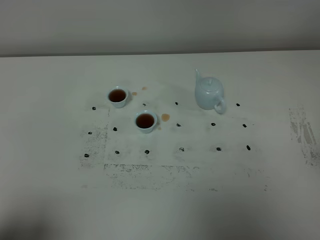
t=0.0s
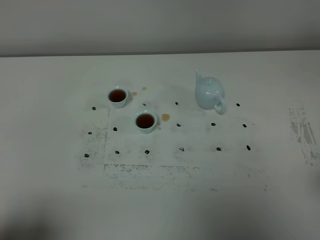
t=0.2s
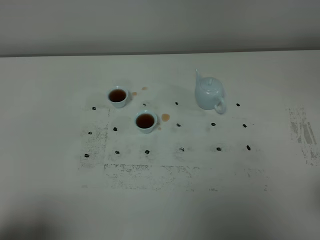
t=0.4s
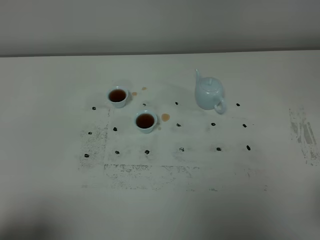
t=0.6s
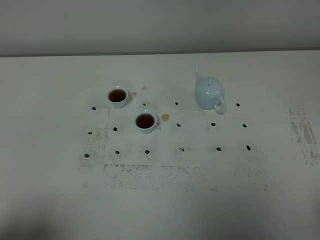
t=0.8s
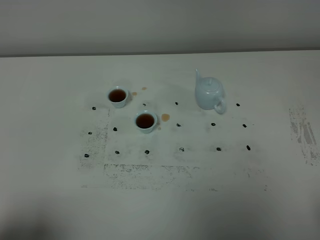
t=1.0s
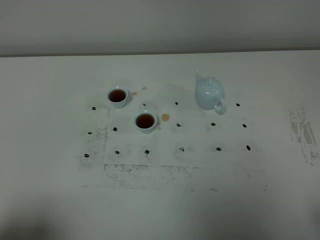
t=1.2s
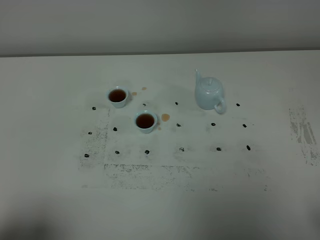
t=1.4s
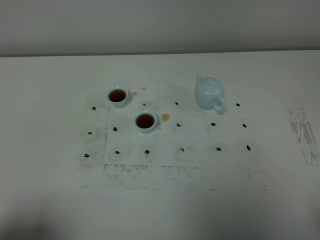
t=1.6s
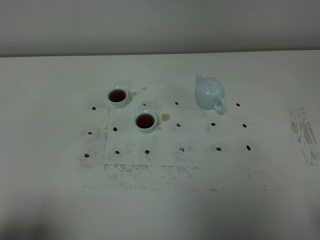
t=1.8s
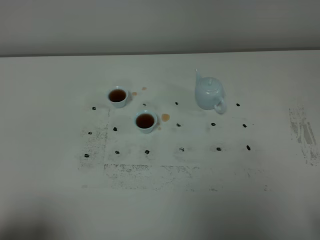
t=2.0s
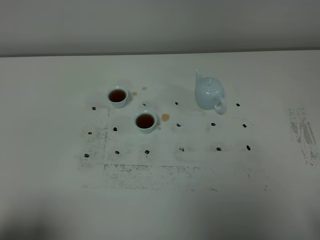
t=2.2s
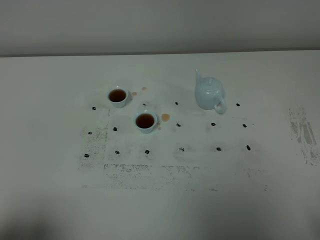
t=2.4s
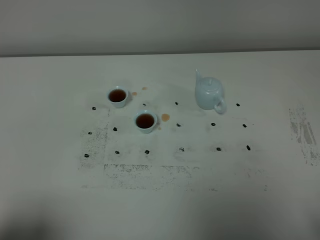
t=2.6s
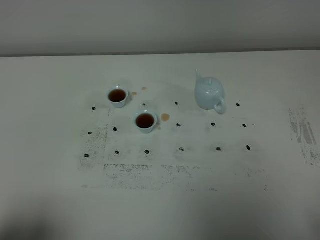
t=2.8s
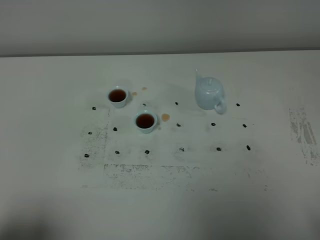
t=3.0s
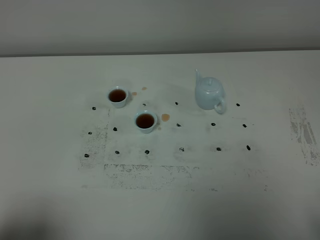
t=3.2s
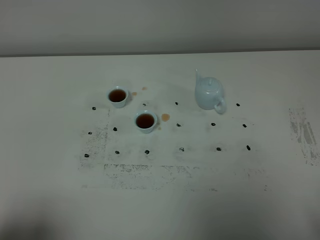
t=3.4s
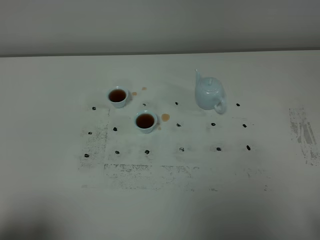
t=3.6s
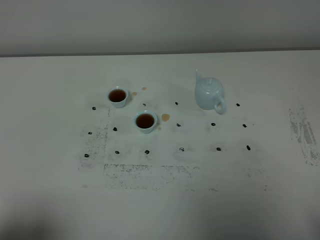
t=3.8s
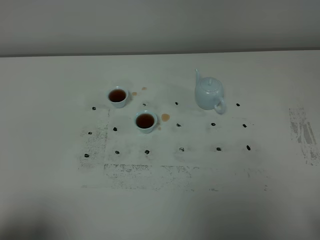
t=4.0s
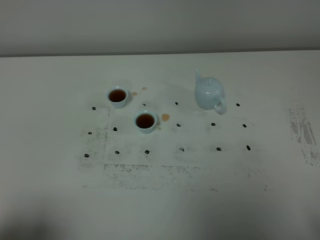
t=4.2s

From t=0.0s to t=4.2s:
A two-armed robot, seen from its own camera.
Task of the whole recording: grasp the blue porcelain teapot and pour the tea into the two blue porcelain teacups one by one, put the blue porcelain teapot back in its original place.
From t=2.8s to t=4.2s: The two grippers keep their place.

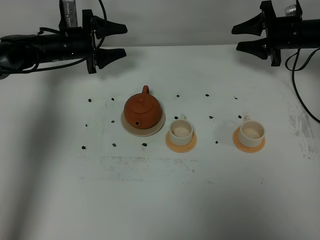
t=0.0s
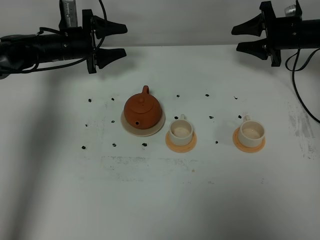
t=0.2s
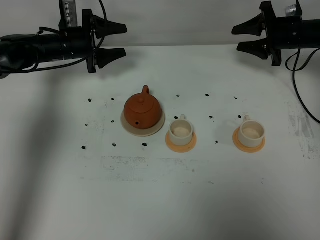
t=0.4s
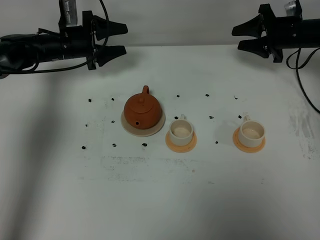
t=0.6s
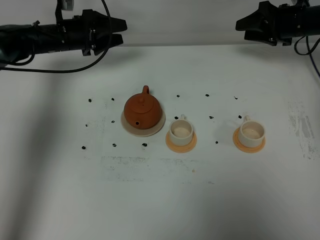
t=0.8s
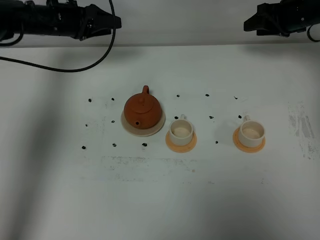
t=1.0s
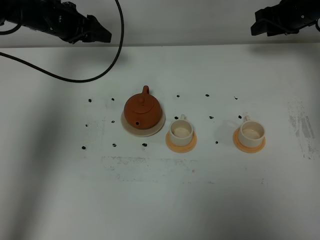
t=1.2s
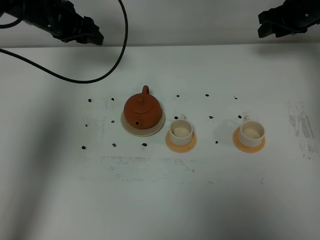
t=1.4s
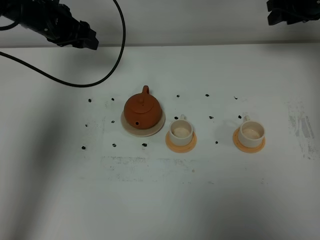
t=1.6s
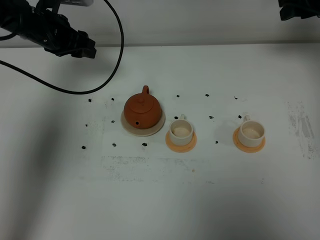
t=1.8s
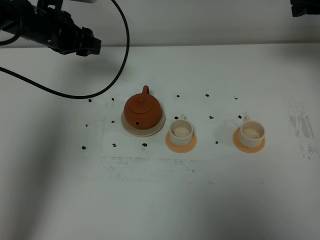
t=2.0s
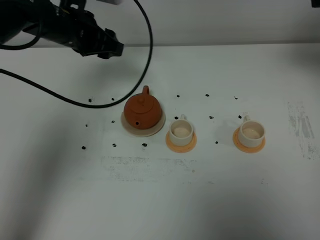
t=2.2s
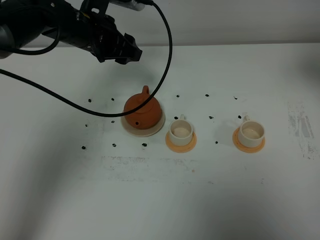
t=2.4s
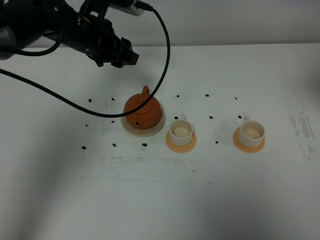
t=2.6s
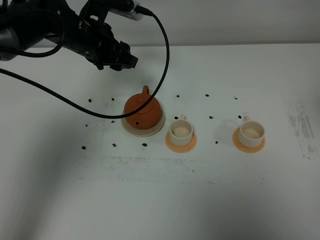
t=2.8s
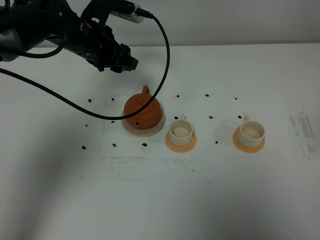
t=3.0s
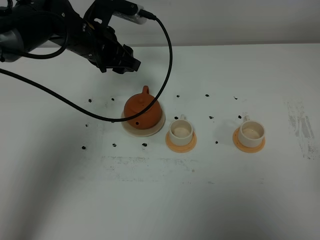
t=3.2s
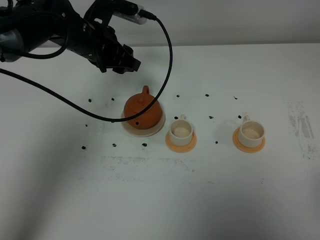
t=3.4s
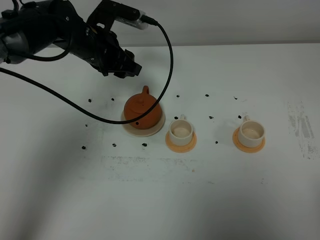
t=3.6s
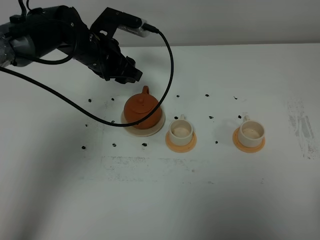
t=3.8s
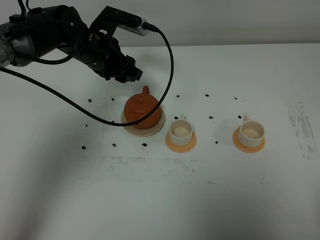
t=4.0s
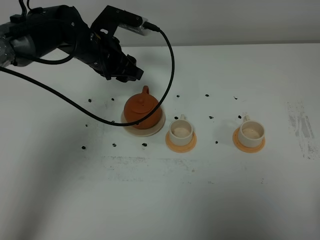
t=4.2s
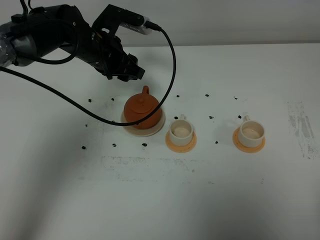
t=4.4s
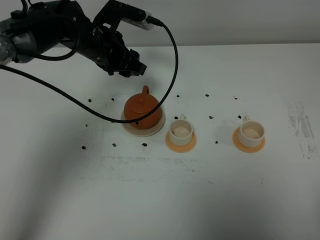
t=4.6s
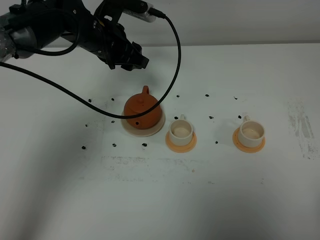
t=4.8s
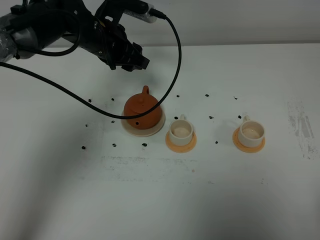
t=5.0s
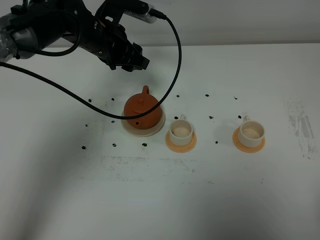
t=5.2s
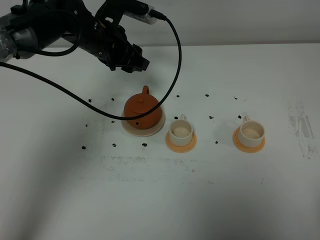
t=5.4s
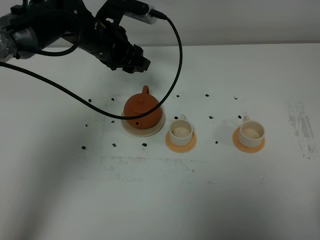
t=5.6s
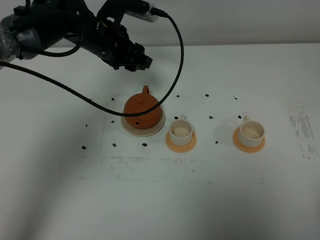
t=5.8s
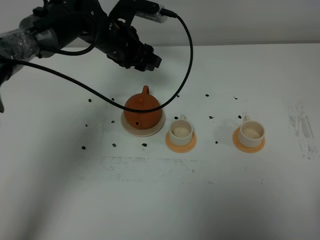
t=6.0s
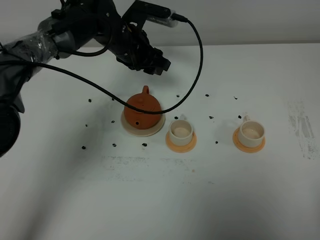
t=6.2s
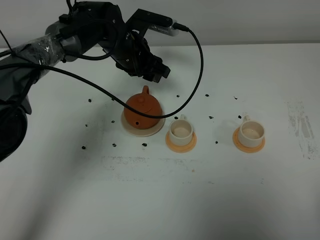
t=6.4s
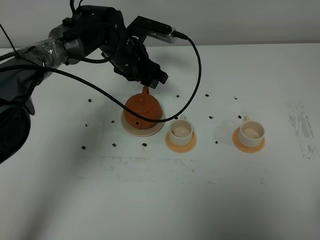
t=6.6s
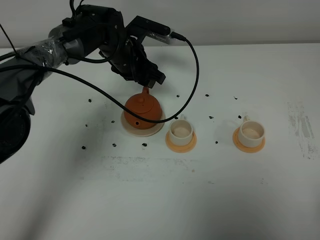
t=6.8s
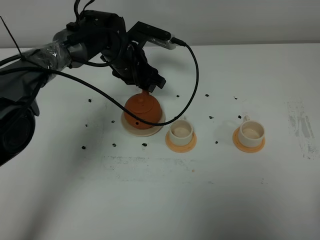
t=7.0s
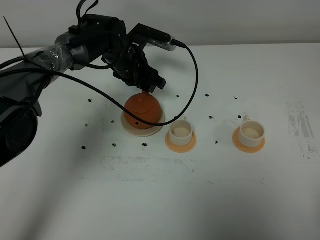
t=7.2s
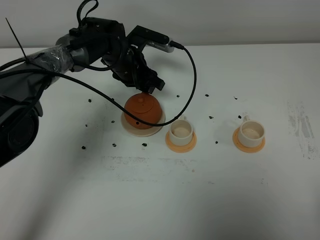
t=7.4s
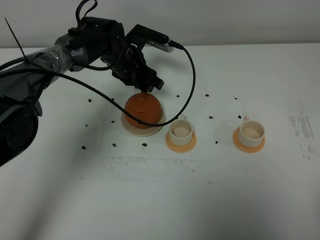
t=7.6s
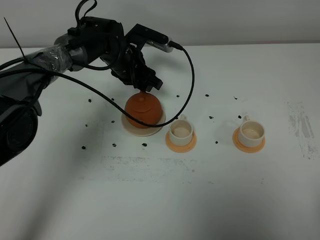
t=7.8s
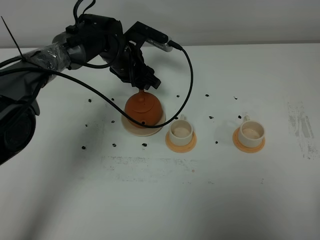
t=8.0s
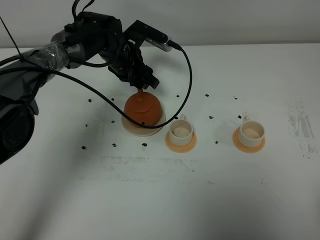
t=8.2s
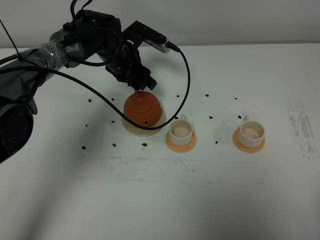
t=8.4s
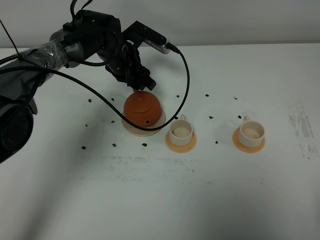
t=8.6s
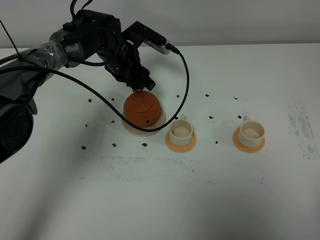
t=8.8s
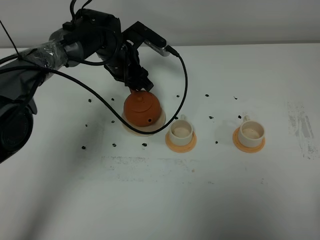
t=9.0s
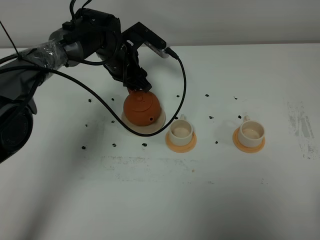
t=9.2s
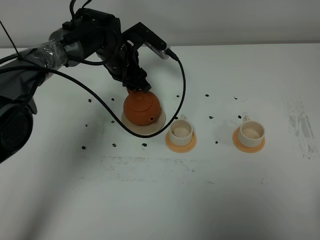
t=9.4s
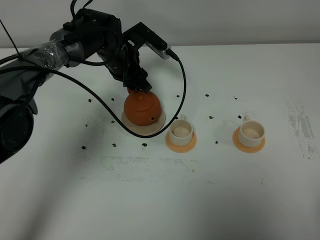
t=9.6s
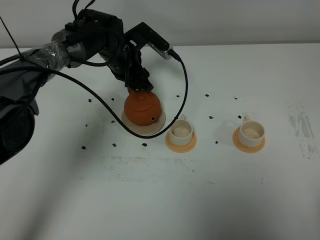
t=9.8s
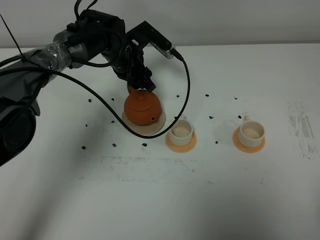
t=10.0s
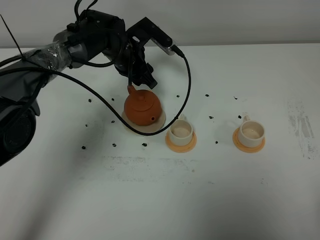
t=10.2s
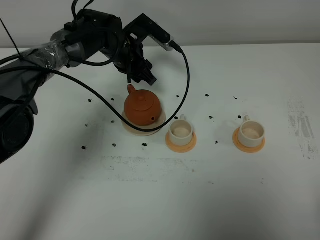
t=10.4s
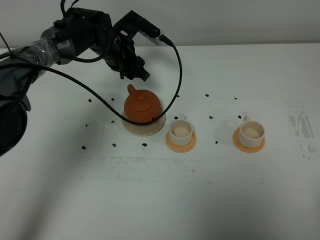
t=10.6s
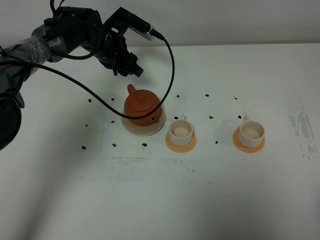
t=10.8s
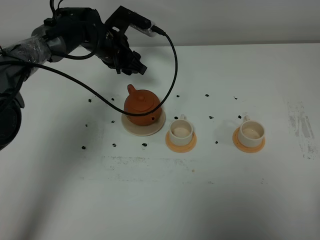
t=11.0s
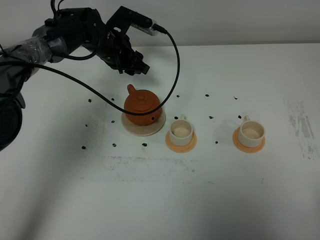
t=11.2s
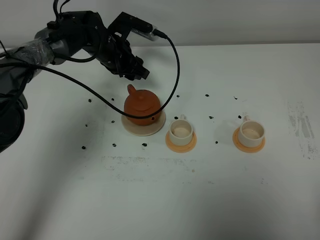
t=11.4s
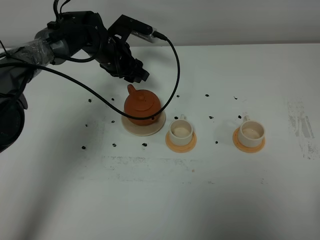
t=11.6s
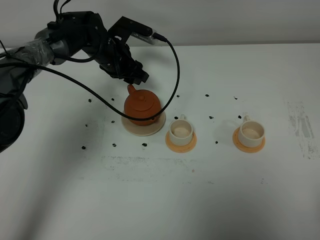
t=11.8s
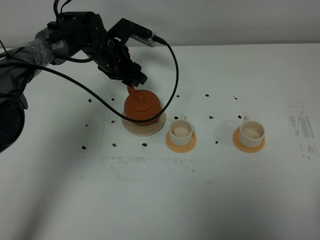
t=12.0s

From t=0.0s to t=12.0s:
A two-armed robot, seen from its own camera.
Task of the whole recording: grasp the brown teapot and pour the tea into the two white teacups one by one, put the brown teapot back in its original place.
From t=0.0s to t=1.6s: The two grippers go approximately 10 cm upward.
From t=1.6s to t=3.0s: The right gripper goes approximately 40 cm backward. The left gripper travels to the right and backward by some 10 cm.
From t=3.0s to t=4.4s: The right gripper travels downward and backward by about 15 cm.
From t=4.4s to t=6.0s: There are only small adjustments of the grippers.
From t=6.0s to t=7.6s: The left gripper travels downward by roughly 5 cm.
From t=7.6s to t=12.0s: The grippers move only a little.

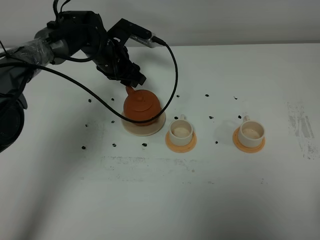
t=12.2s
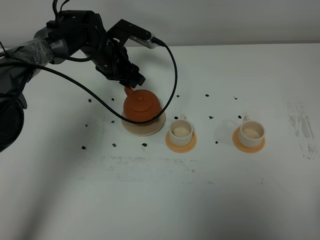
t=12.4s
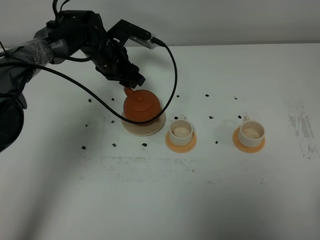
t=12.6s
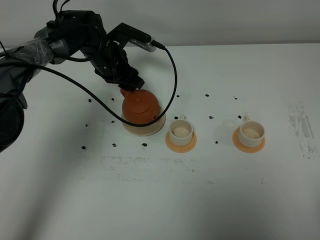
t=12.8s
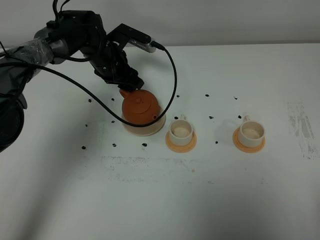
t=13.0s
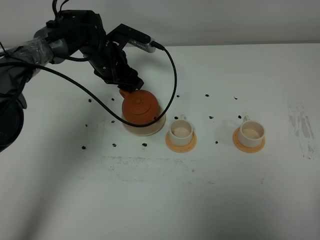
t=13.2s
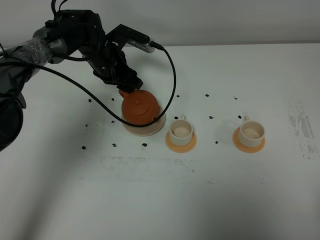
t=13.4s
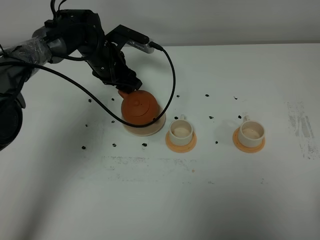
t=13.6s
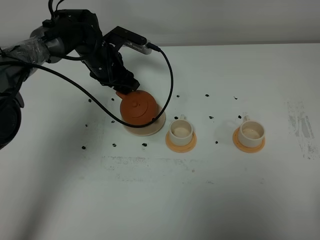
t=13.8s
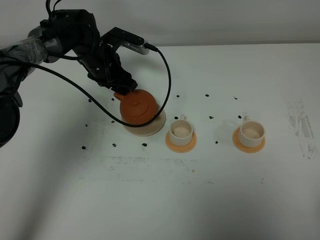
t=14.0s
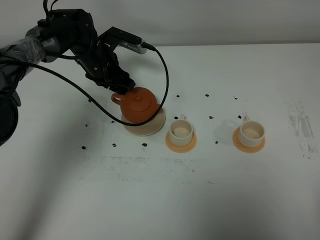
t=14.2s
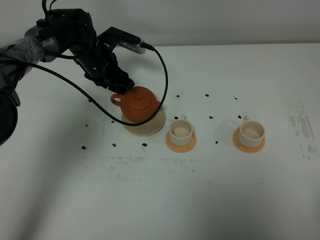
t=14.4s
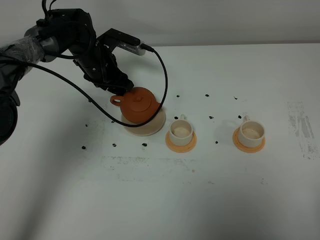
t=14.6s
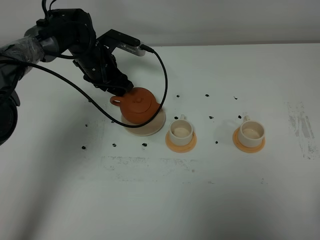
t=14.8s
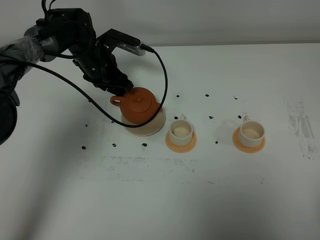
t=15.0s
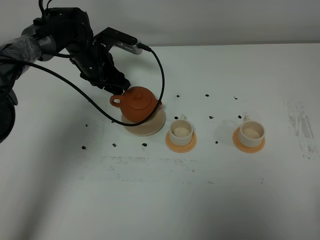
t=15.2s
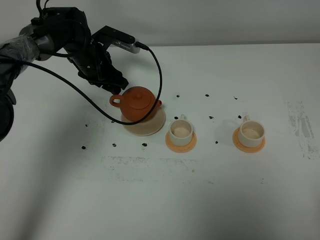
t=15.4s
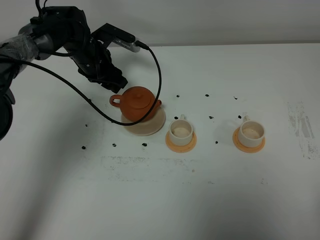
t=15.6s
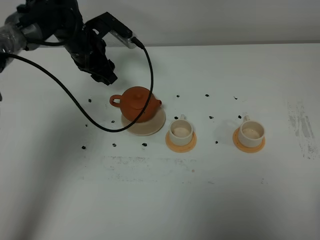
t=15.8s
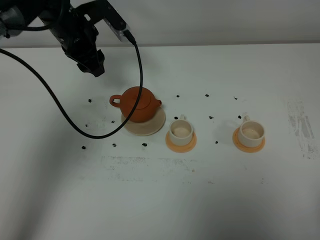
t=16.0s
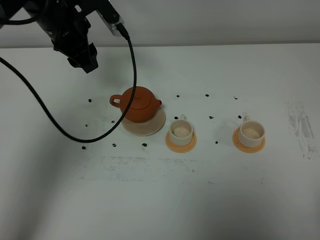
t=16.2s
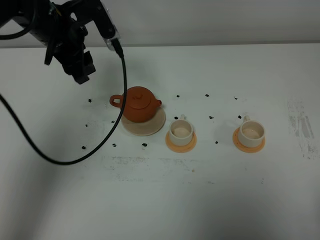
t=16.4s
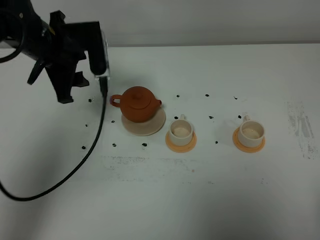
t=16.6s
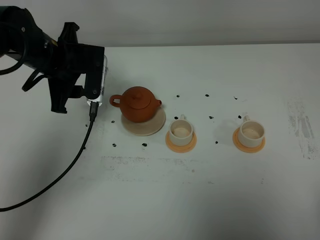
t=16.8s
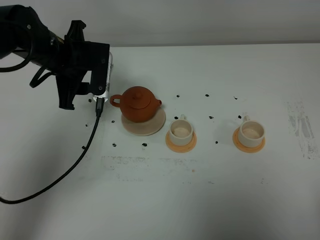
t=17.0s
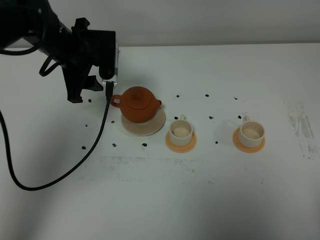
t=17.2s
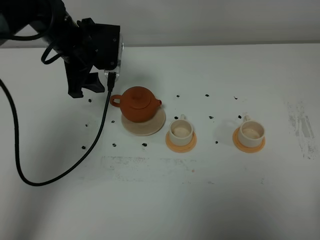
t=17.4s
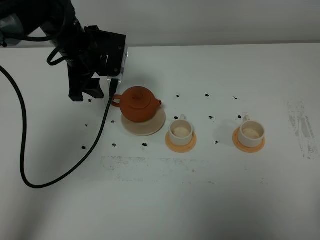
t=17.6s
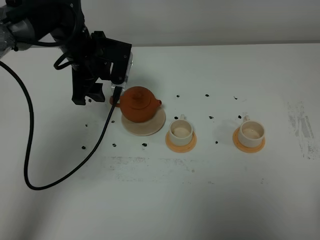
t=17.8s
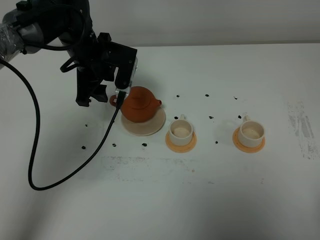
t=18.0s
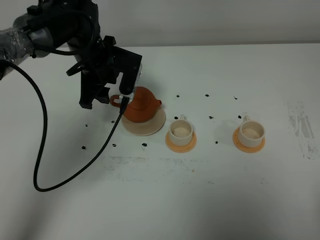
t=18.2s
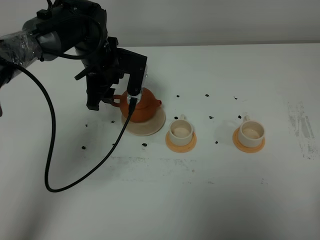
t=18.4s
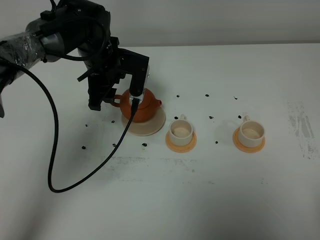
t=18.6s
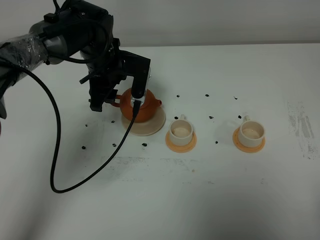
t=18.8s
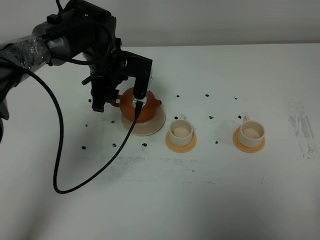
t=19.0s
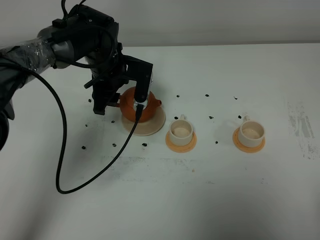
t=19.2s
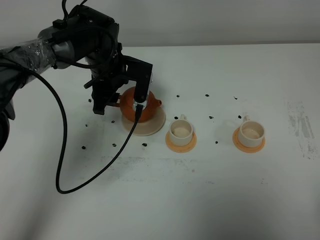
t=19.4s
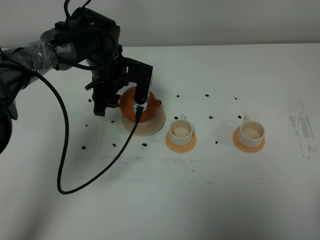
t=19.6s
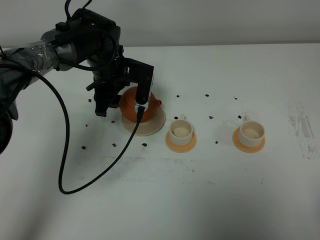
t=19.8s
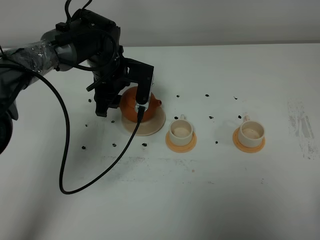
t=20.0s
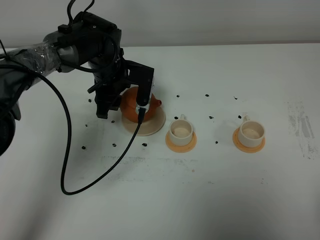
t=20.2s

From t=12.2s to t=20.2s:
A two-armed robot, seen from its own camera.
Task of the whole recording: grasp the brown teapot and pour the tea into the two white teacups one by one, put the brown teapot back in its original place.
From t=12.2s to t=15.4s: There are only small adjustments of the grippers.
From t=15.4s to t=17.0s: The left gripper travels backward and upward by some 15 cm.
From t=17.0s to t=18.6s: The left gripper moves to the right, roughly 5 cm.
From t=18.6s to t=20.2s: The grippers move only a little.
